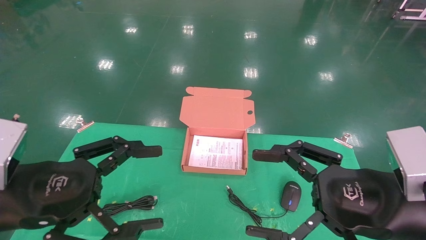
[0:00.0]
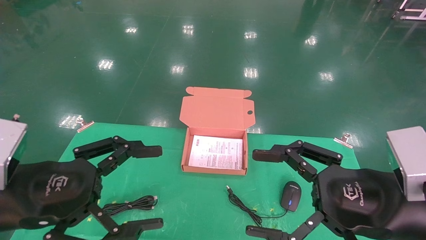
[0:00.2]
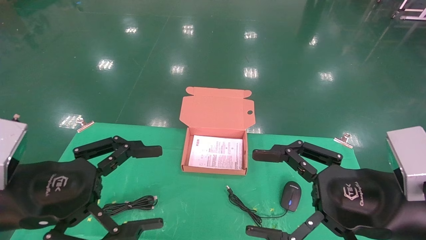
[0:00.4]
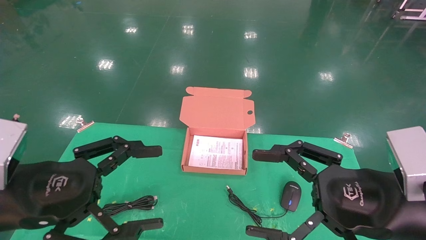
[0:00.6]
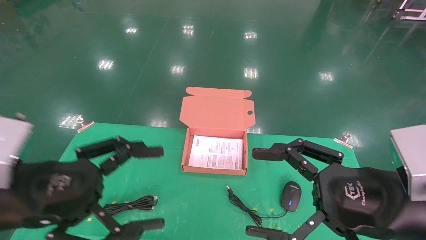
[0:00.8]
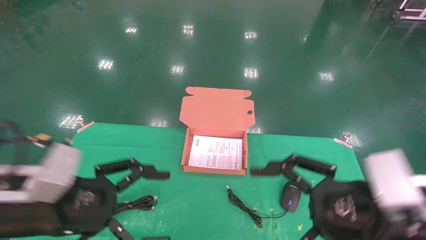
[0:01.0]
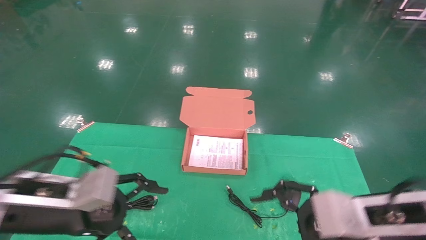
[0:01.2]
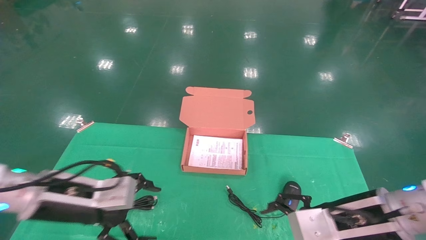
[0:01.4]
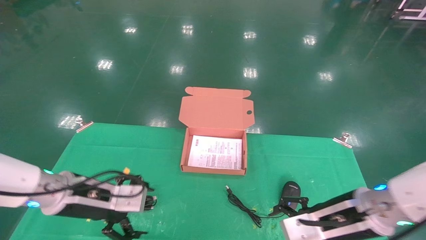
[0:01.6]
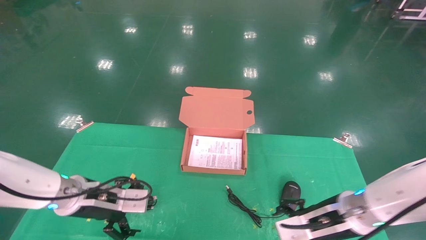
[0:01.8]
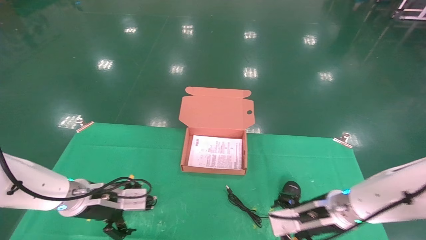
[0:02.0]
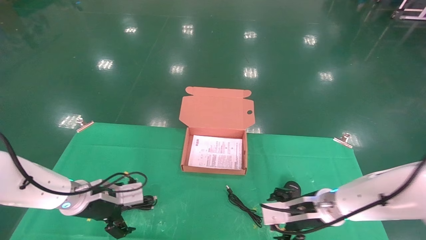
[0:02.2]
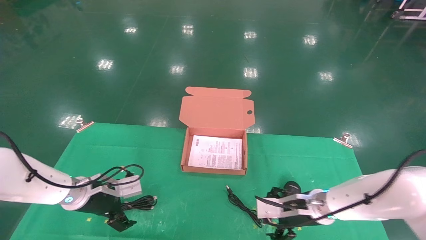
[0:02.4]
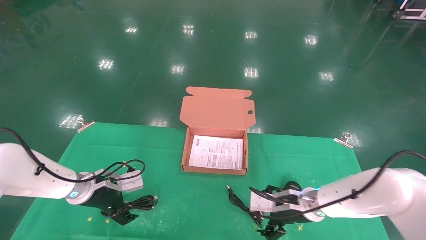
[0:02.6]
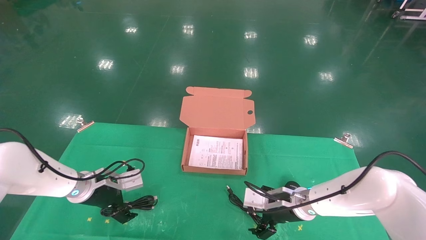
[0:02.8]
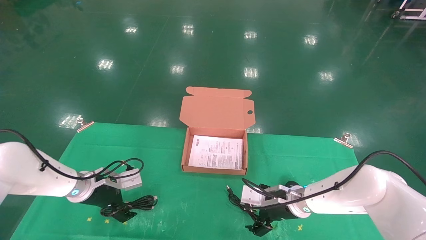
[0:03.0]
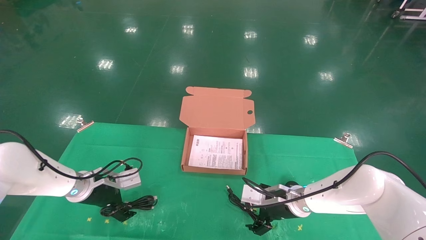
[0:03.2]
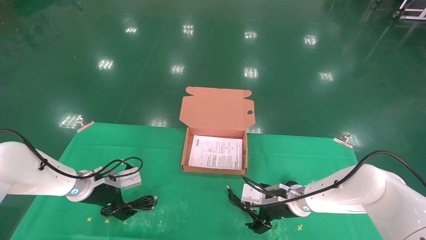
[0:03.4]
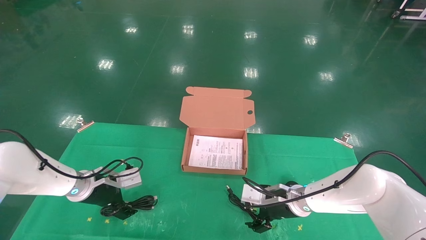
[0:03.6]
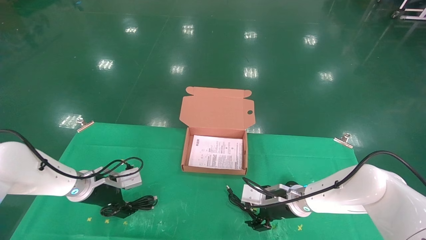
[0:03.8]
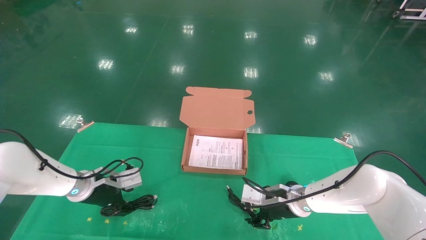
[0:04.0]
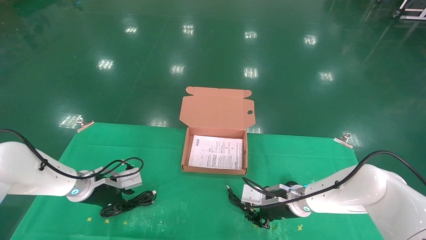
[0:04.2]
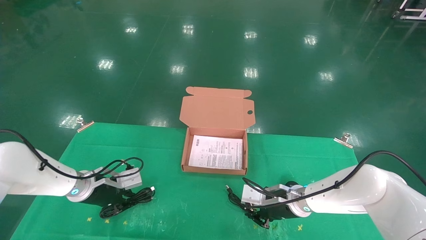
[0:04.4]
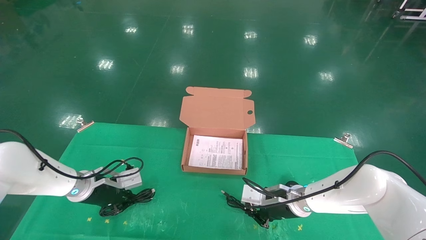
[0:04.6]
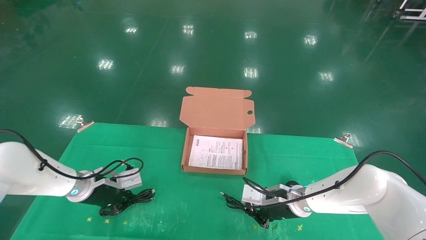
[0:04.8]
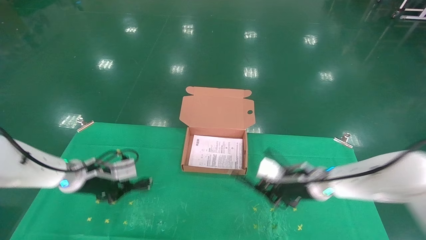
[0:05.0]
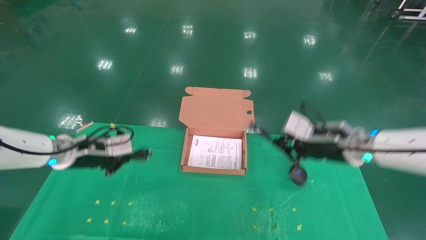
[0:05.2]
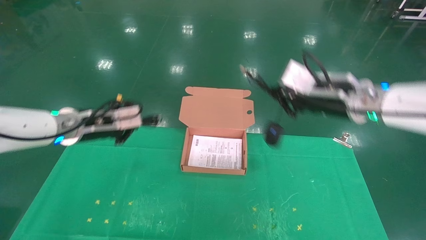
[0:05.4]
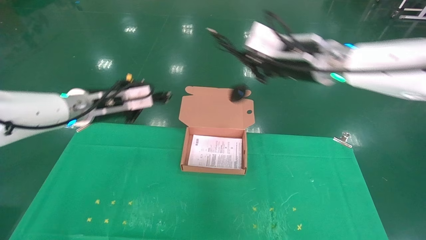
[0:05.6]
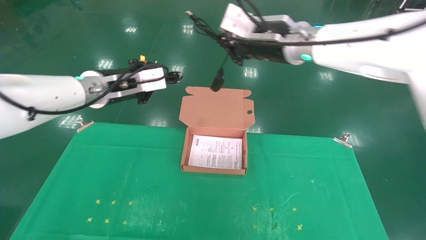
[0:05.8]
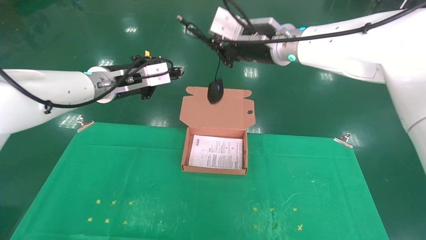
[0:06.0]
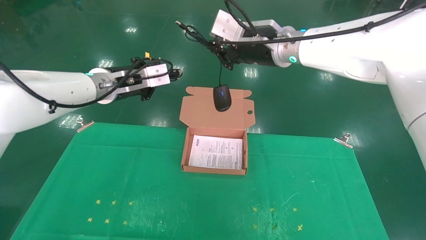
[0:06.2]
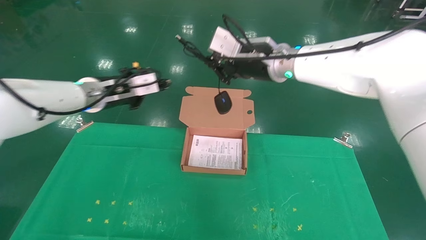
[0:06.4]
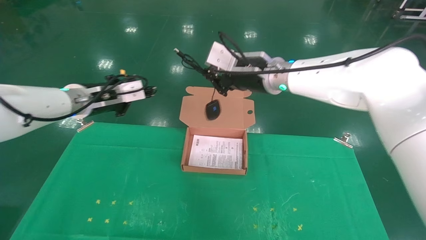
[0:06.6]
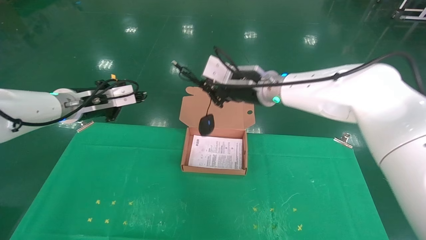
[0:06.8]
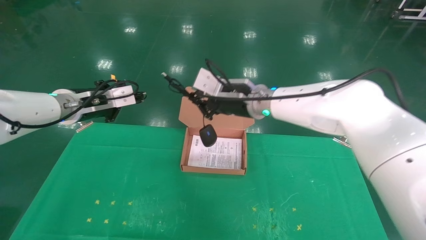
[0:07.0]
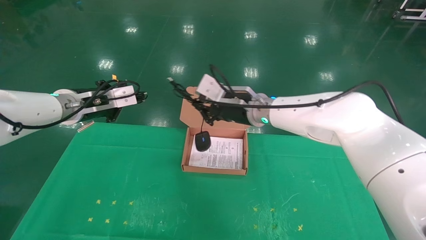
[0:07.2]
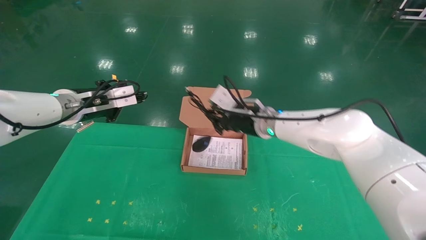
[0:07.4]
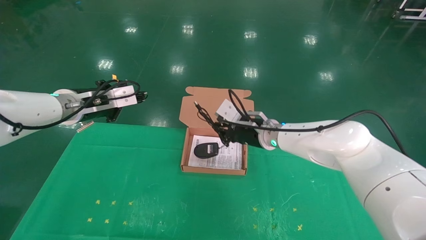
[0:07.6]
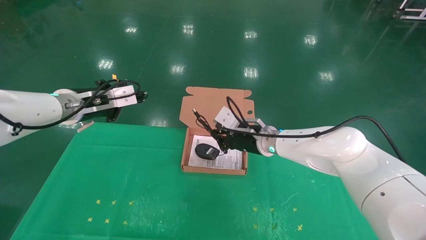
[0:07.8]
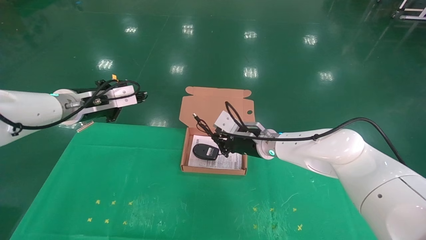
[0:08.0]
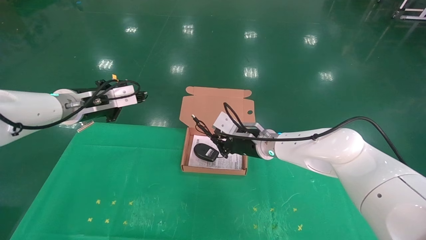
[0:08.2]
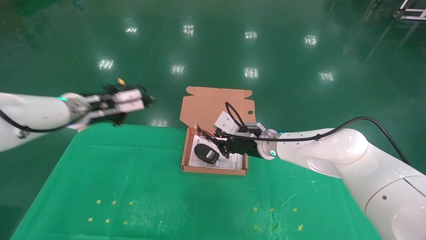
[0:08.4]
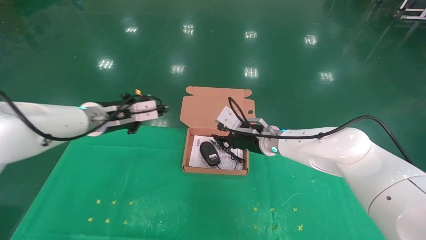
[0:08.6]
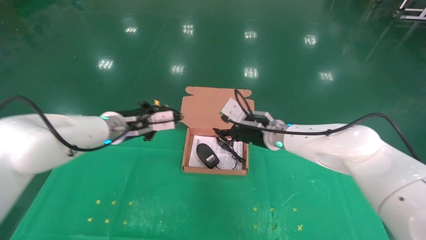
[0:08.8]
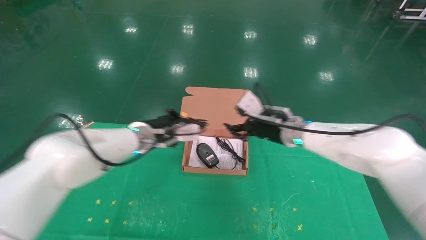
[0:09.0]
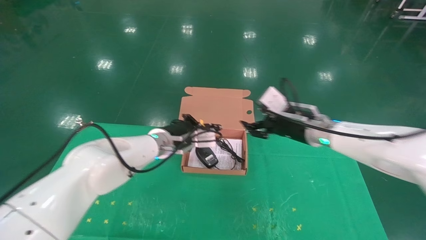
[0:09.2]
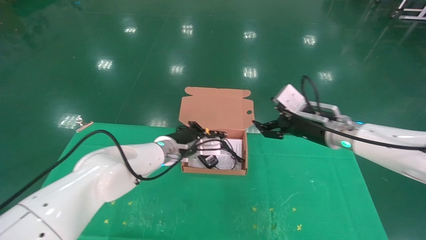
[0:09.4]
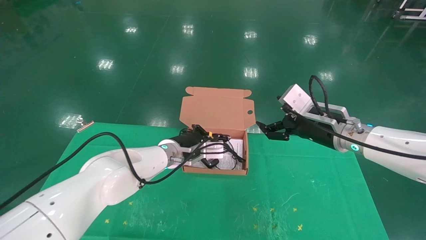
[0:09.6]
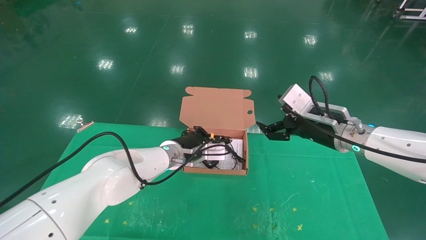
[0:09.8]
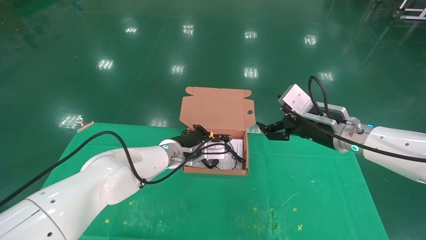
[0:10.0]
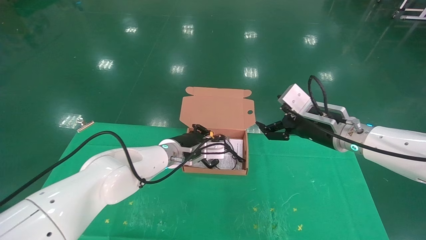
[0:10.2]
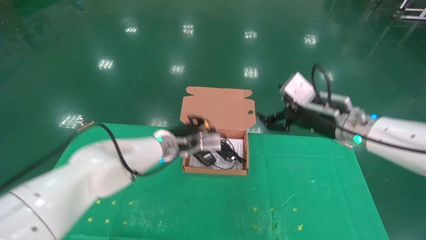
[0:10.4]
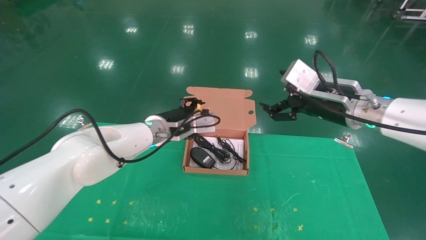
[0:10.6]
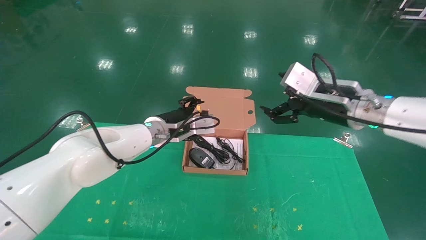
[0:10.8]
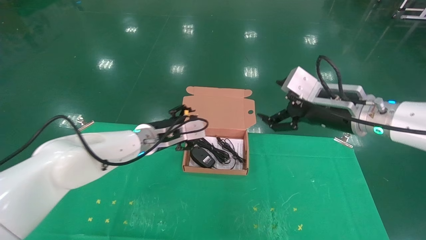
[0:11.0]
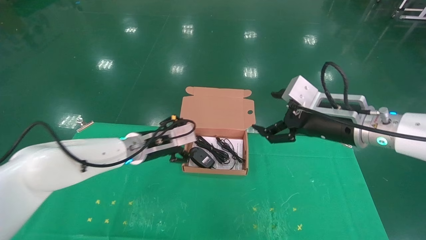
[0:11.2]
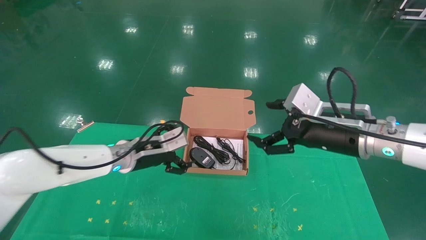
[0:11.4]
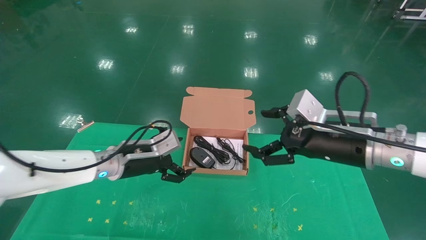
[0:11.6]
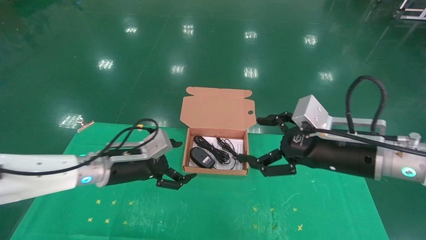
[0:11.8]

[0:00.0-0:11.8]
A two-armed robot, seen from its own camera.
Task of the whole recording: grasp data cable left put into box grasp mouse right put into box.
Step, 0:01.0 to 0:05.6: Grab and pick up both the mouse and power cord from the accessory packaging area at the same time.
Step, 0:05.8 to 0:10.2: Place the mouse and power cord into the box.
0:00.0 to 0:01.4: The grippers both shift forward and downward by some 10 cm.
0:01.4 to 0:03.0: Both grippers move forward and downward, approximately 20 cm.
0:03.0 to 0:04.4: The left gripper closes up. Meanwhile the right gripper closes up.
0:04.4 to 0:06.0: The grippers both shift upward by about 30 cm.
0:06.0 to 0:07.4: The right gripper heads downward, covering roughly 15 cm. The left gripper is displaced to the left by about 5 cm.
0:07.4 to 0:08.8: The left gripper shifts about 10 cm to the right and downward. The right gripper shifts by about 5 cm.
0:08.8 to 0:10.4: The left gripper moves to the right, roughly 10 cm; the right gripper shifts some 15 cm to the right, backward and upward, and opens.
0:10.4 to 0:11.8: The right gripper shifts roughly 10 cm backward; the left gripper is displaced to the left and backward by some 15 cm, and opens.
